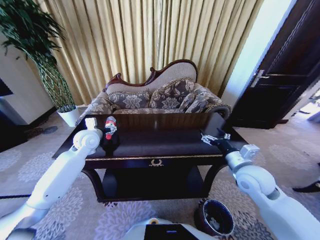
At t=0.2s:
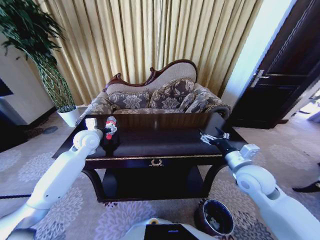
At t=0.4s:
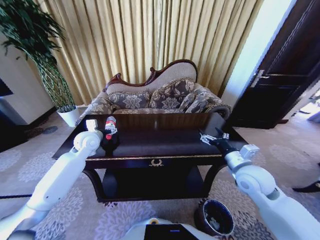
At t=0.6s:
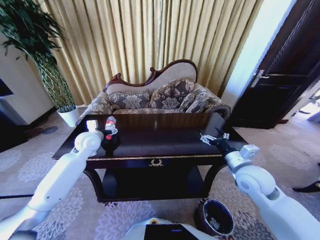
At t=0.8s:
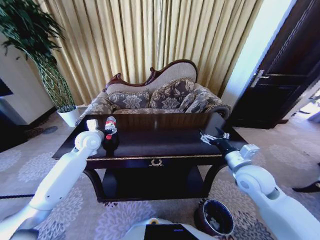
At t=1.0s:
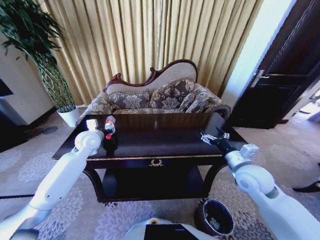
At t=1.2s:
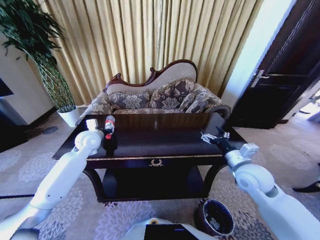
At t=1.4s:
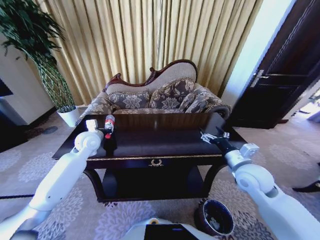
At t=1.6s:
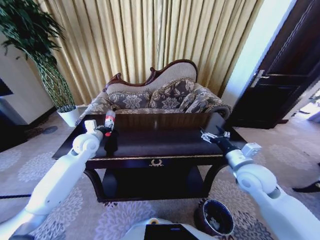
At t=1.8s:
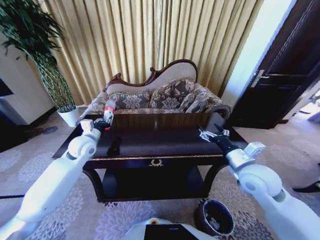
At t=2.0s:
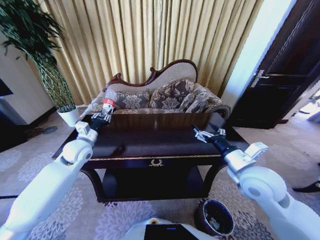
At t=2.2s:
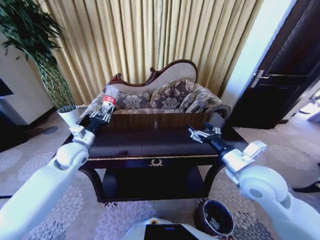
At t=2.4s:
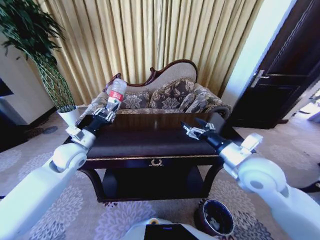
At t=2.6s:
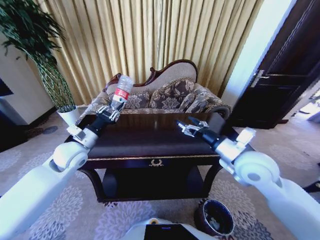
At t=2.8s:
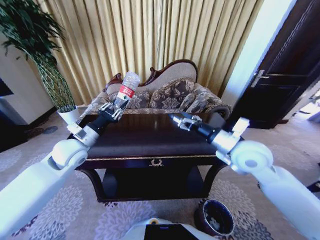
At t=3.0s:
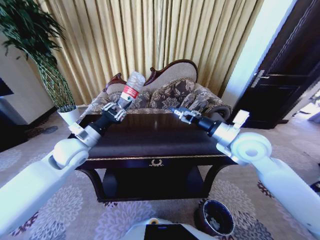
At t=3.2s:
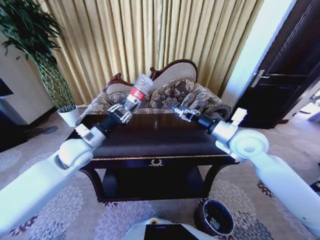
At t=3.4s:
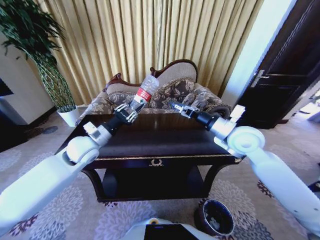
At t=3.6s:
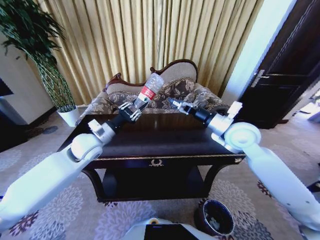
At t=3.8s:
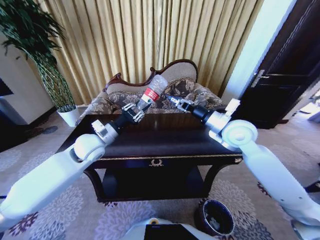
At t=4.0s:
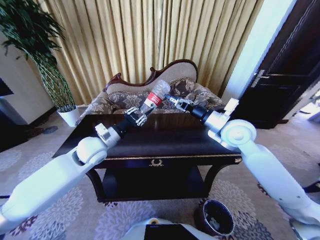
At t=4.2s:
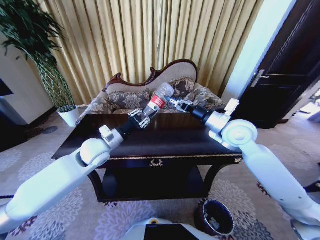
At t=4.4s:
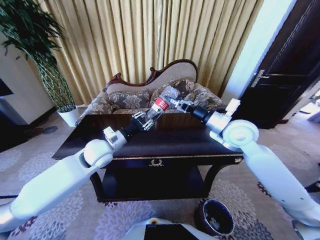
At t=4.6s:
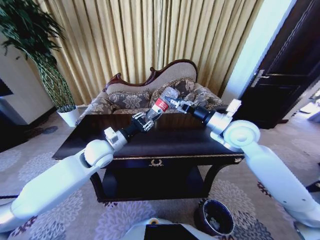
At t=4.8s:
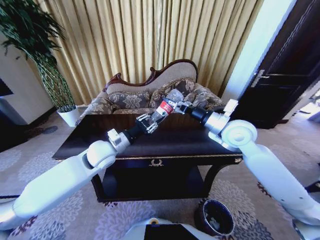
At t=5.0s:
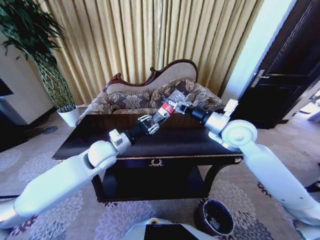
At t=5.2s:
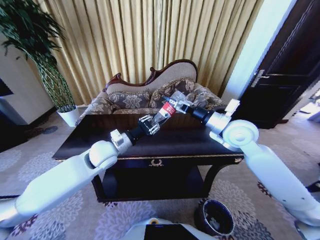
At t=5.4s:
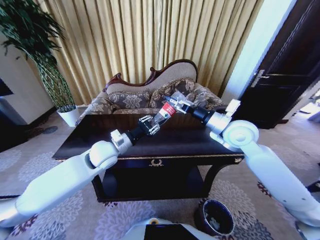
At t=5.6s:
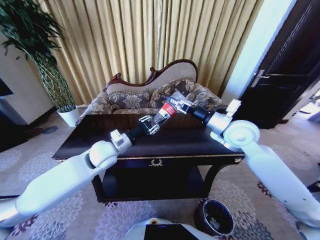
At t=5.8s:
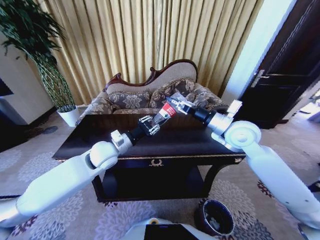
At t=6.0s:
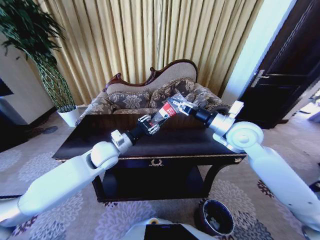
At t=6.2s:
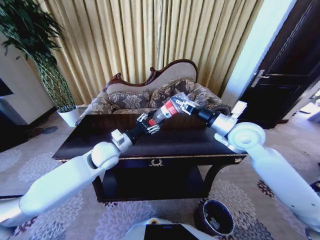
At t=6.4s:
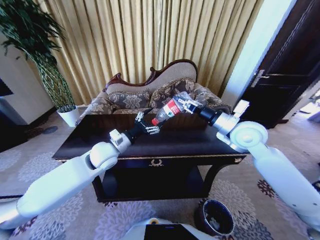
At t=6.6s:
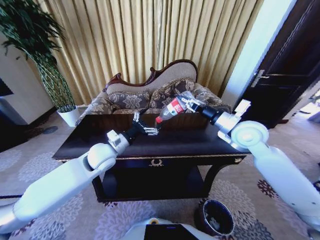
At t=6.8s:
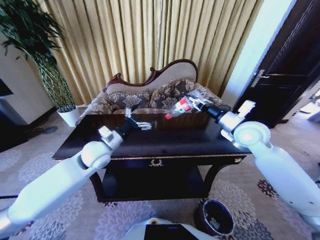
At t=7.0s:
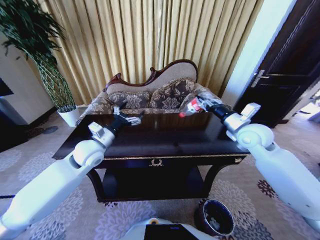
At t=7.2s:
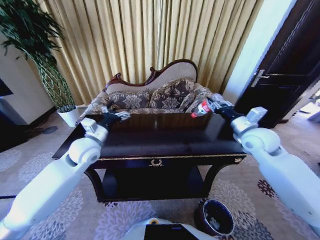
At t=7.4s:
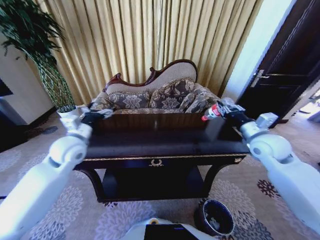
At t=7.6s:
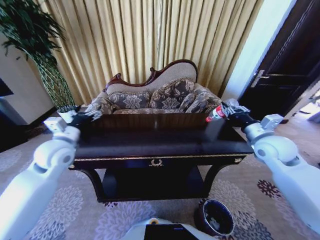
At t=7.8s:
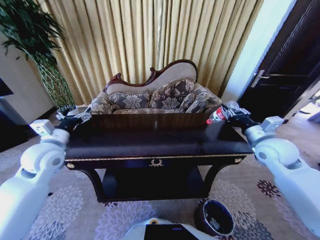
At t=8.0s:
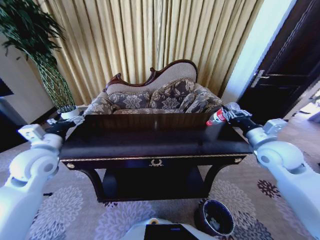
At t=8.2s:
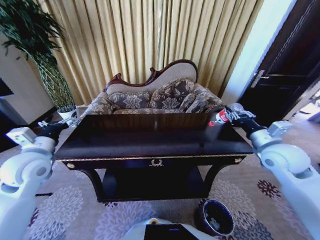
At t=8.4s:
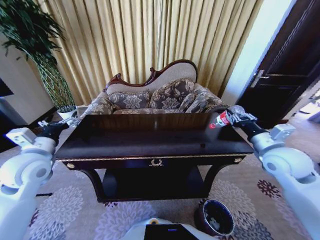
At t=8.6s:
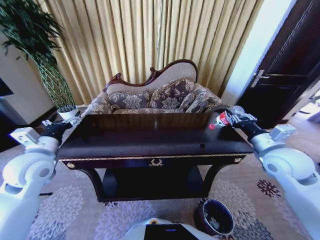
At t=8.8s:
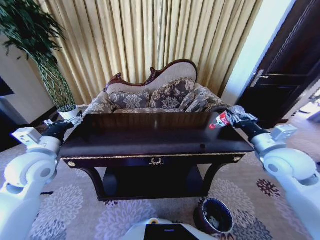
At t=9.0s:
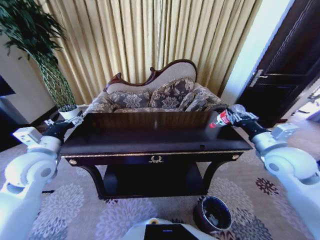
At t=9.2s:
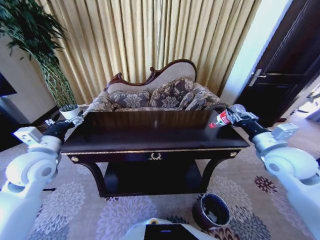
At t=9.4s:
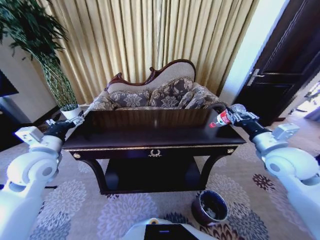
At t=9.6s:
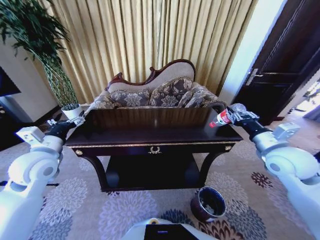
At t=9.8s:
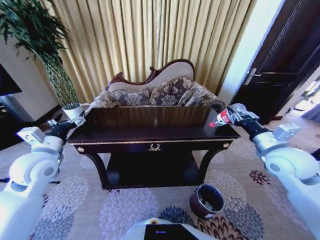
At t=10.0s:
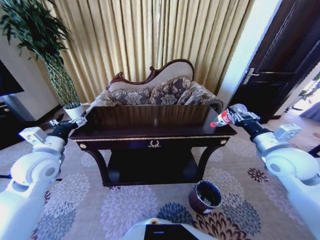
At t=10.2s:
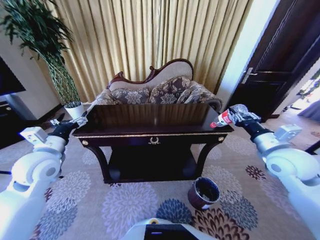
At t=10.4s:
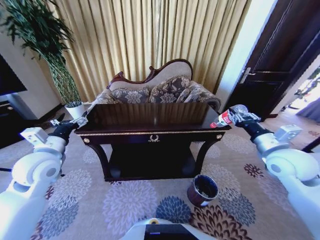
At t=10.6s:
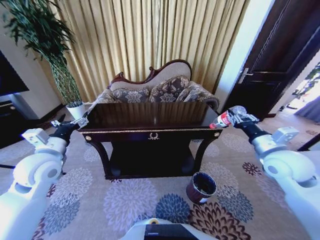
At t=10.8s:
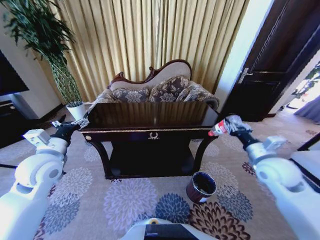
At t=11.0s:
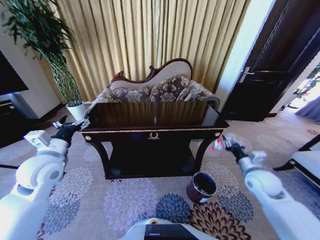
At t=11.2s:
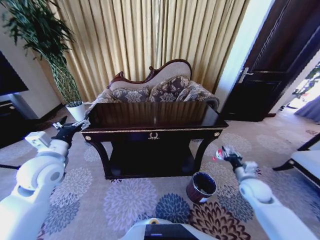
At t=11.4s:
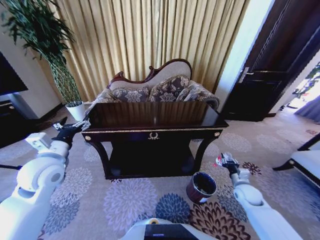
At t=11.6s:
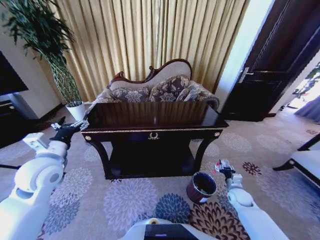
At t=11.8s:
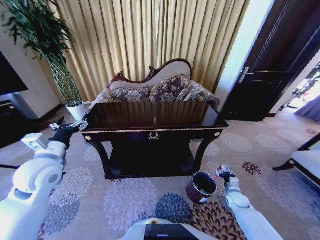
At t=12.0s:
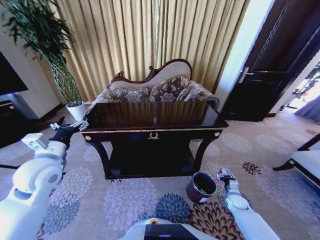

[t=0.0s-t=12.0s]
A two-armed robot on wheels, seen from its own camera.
Task of the whole recording: Move to the front of the table and place the trash on the table into the trash bin.
t=0.0s to t=1.6s: The left gripper closes.
t=1.6s to t=3.0s: The right gripper shifts roughly 10 cm upward and forward; the left gripper goes some 10 cm backward and upward.
t=3.0s to t=4.4s: The right gripper goes some 5 cm forward. Meanwhile the left gripper travels to the right by about 10 cm.
t=4.4s to t=6.0s: The right gripper closes its fingers.
t=6.0s to t=7.6s: The left gripper is displaced to the left by roughly 15 cm, and opens up. Meanwhile the right gripper goes about 10 cm to the right.
t=7.6s to t=9.0s: The grippers both shift backward by about 5 cm.
t=10.4s to t=12.0s: The right gripper heads downward, covering about 40 cm.

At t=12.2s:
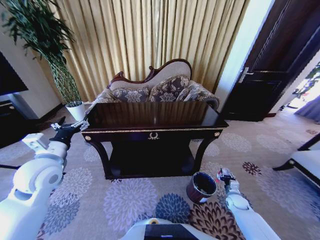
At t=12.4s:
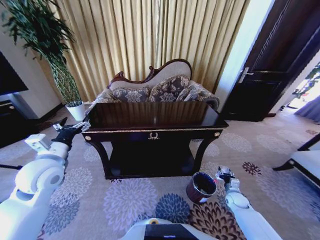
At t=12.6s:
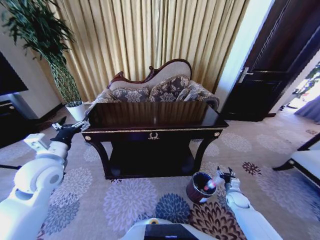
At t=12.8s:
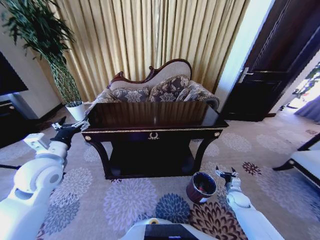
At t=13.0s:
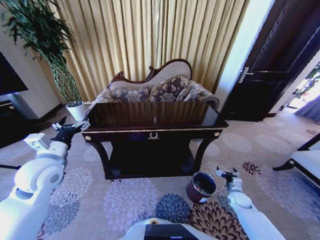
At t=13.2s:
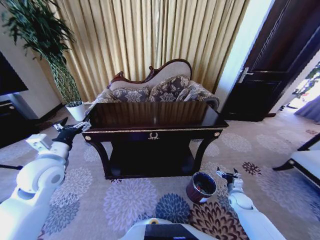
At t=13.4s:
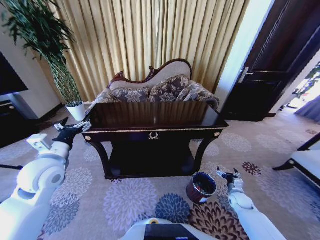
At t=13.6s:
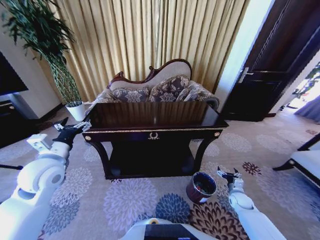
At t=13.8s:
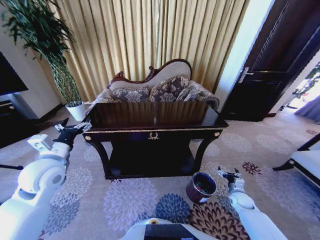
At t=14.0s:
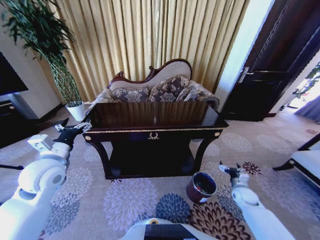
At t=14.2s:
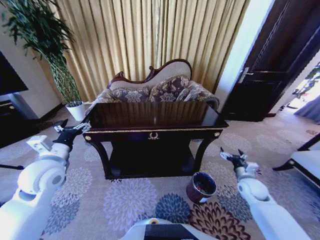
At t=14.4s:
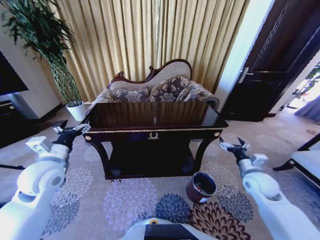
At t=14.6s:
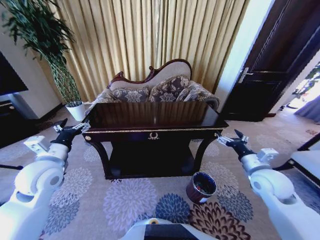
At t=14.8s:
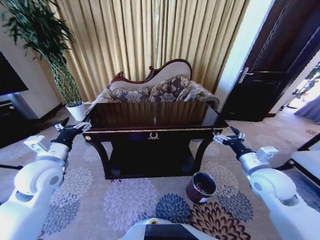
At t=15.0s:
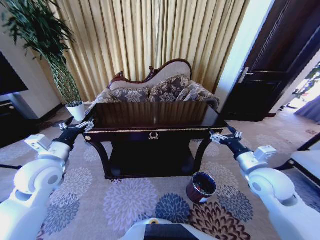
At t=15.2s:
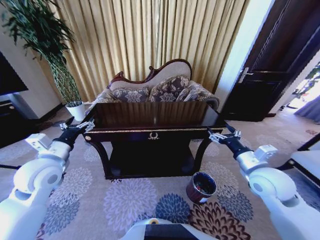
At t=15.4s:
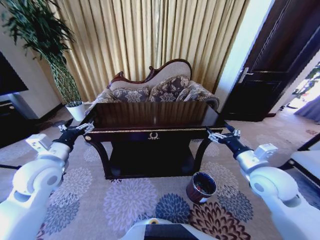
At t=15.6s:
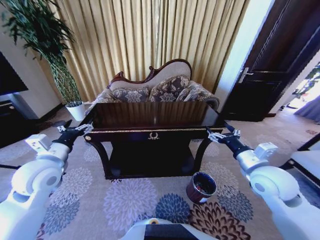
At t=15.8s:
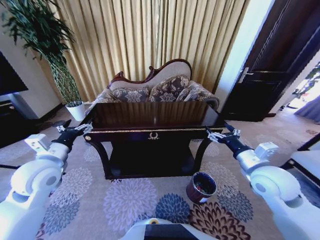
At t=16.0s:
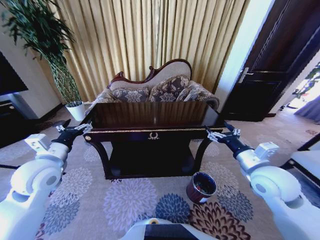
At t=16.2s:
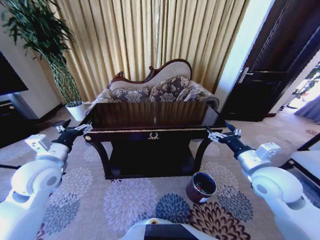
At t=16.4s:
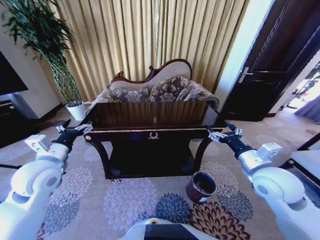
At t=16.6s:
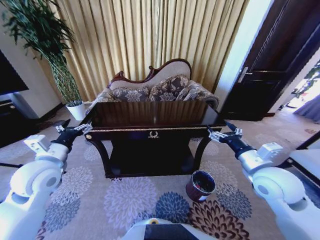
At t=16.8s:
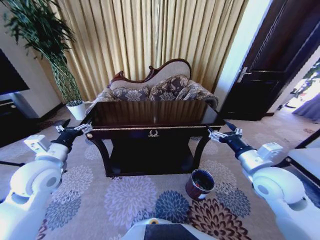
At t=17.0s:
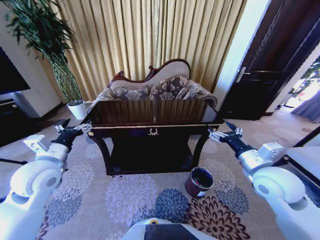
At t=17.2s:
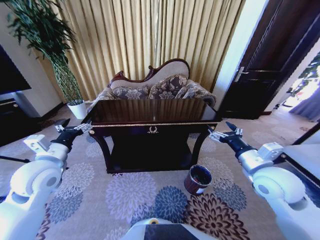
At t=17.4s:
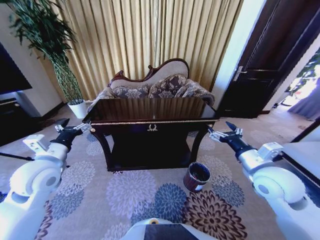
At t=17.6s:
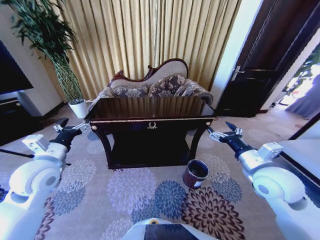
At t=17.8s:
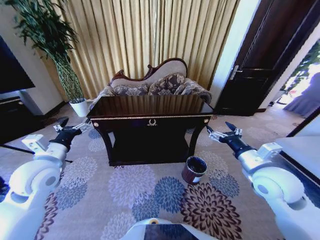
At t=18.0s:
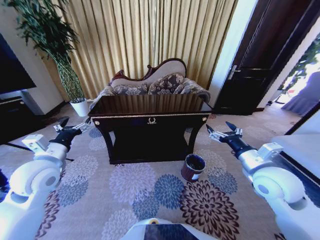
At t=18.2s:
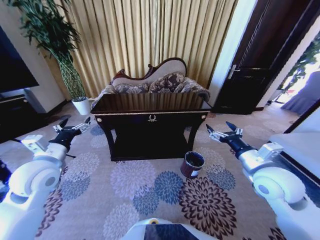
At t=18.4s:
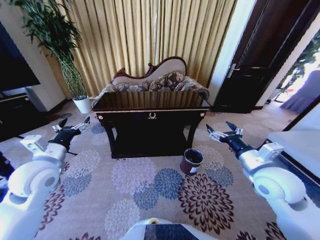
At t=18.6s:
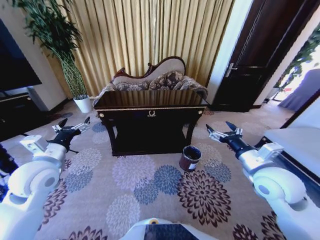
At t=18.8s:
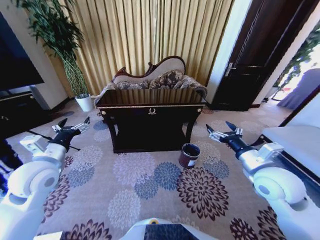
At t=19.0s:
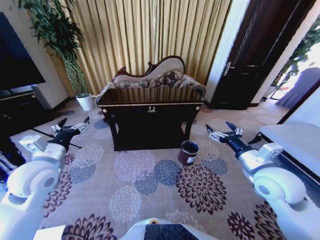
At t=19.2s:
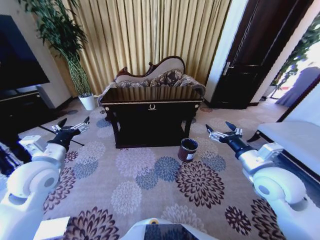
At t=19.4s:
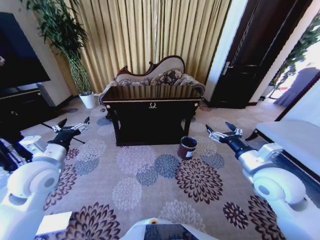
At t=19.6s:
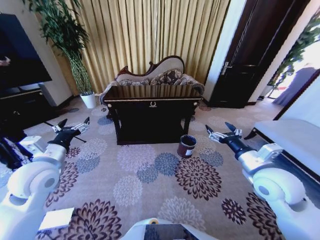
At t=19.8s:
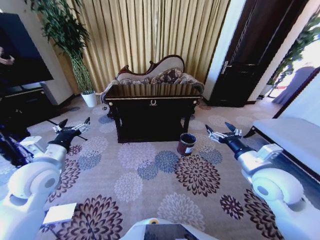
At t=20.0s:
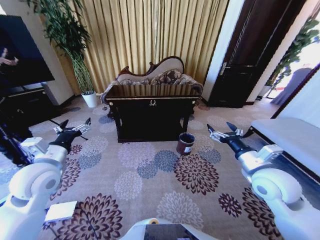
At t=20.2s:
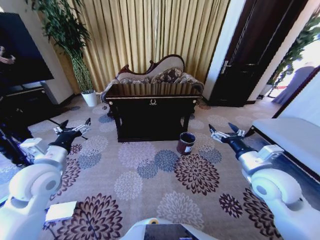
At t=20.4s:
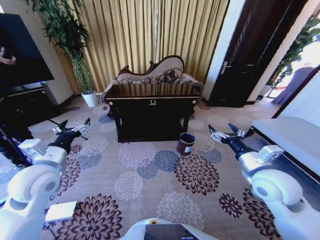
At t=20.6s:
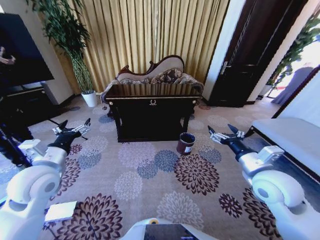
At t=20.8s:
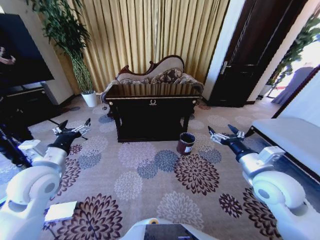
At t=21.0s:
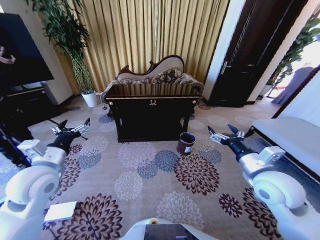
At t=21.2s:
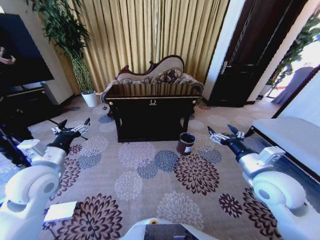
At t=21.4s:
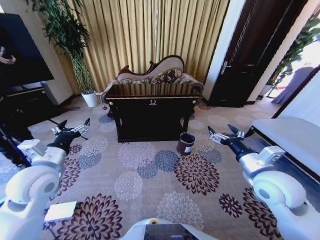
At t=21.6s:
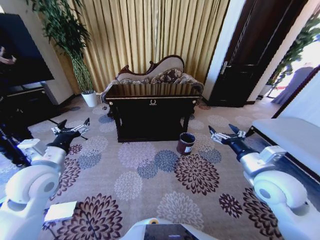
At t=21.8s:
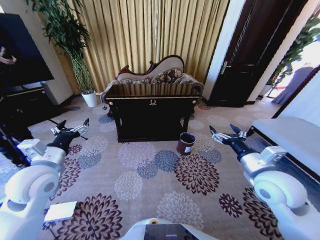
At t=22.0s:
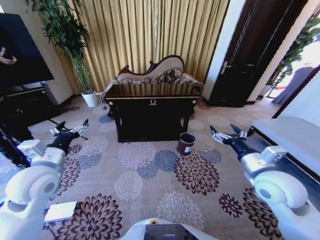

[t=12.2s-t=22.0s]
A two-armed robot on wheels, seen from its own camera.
Task of the whole recording: Move to the front of the table and place the trash on the table into the trash bin.
t=12.2s to t=13.6s: The right gripper opens up.
t=13.6s to t=15.0s: The right gripper travels upward by some 30 cm.
t=15.0s to t=16.4s: The grippers stay close to where they were, moving slightly.
t=20.6s to t=22.0s: The two grippers keep their place.
